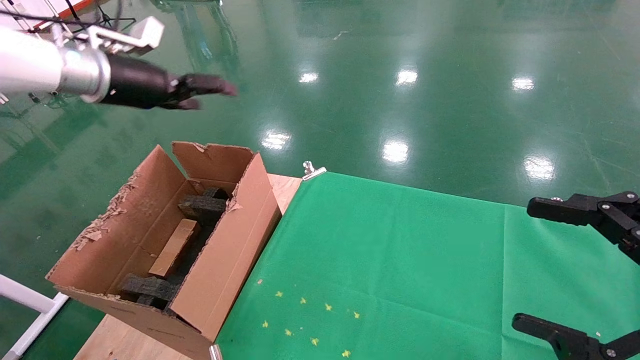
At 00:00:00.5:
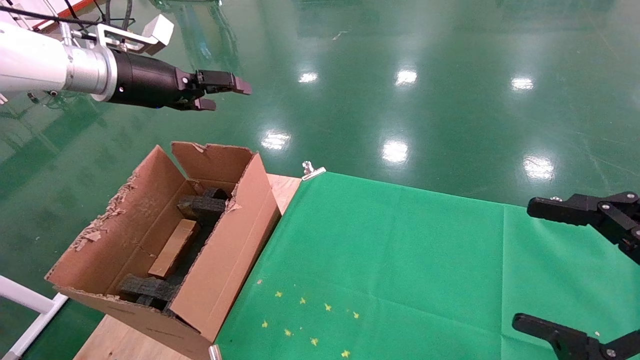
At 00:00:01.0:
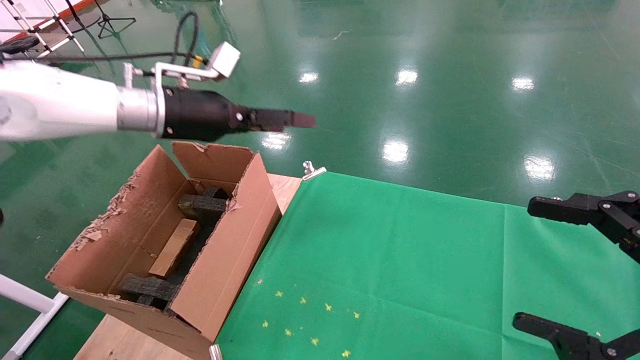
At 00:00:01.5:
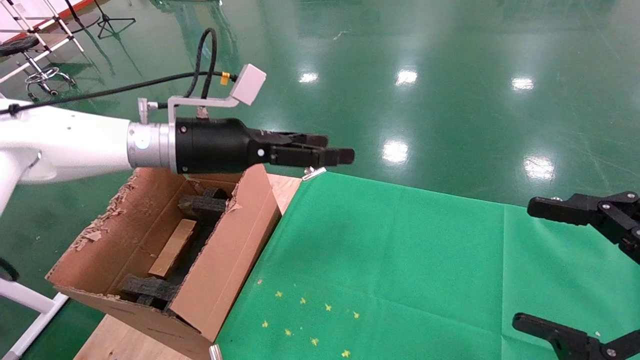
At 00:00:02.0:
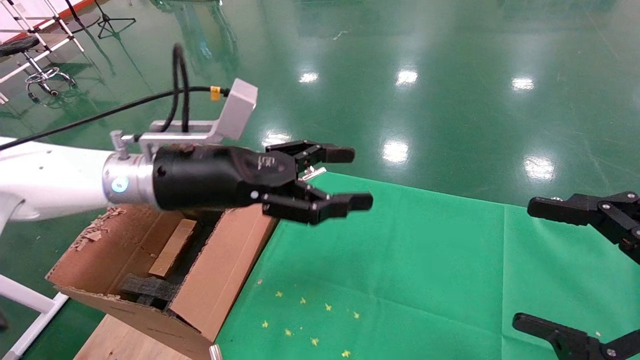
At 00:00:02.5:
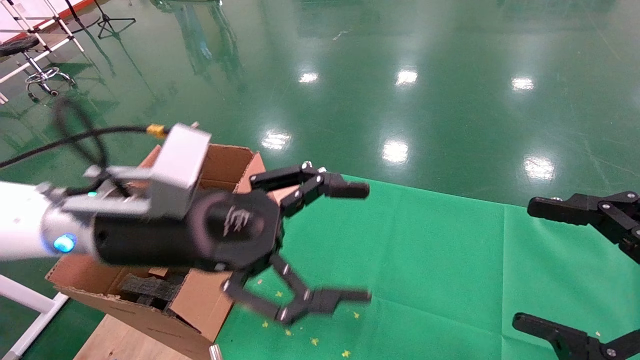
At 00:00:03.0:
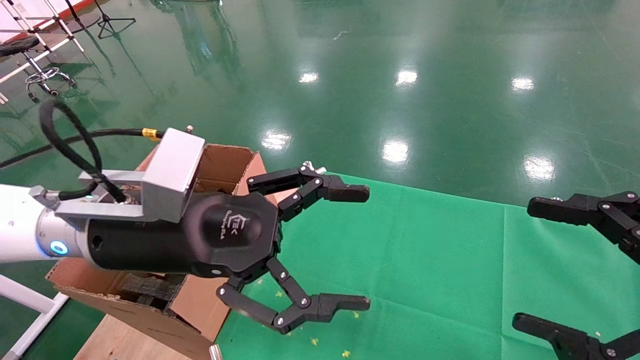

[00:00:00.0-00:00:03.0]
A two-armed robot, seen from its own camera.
Task of the whole recording: using a robotic arm to pick up a cardboard box and palace it the carton.
00:00:00.0 to 00:00:01.5: The left gripper is displaced to the right and downward by approximately 15 cm.
00:00:01.5 to 00:00:03.0: The left gripper goes approximately 15 cm backward.
